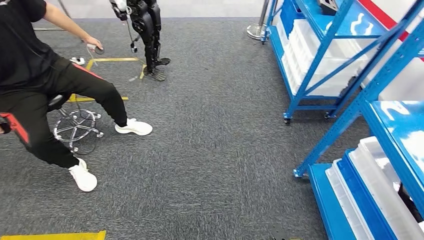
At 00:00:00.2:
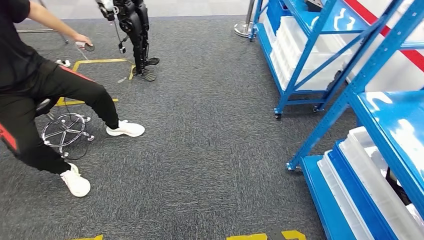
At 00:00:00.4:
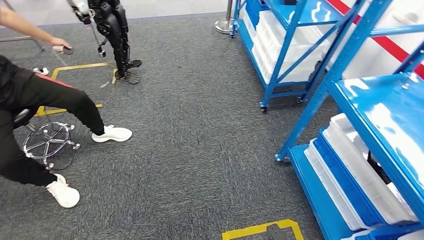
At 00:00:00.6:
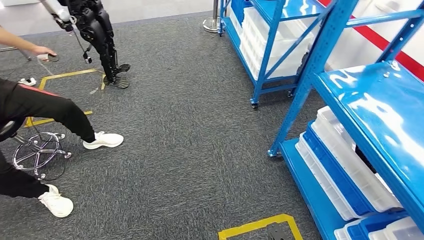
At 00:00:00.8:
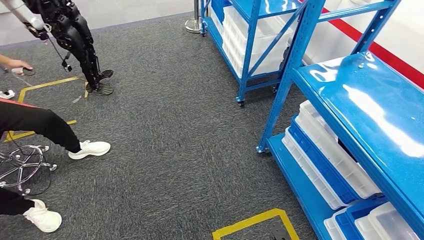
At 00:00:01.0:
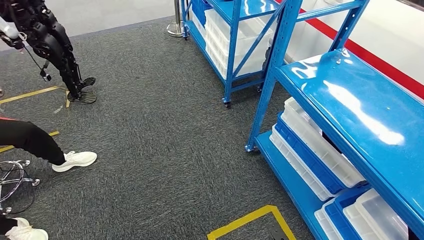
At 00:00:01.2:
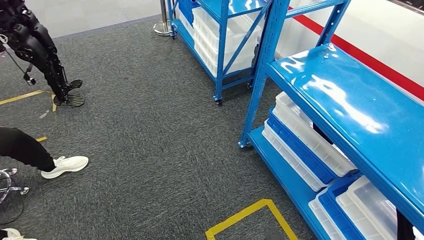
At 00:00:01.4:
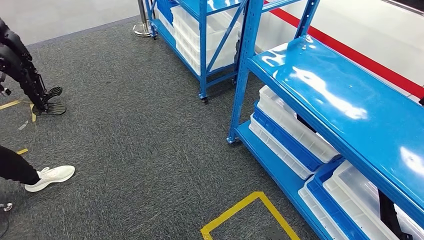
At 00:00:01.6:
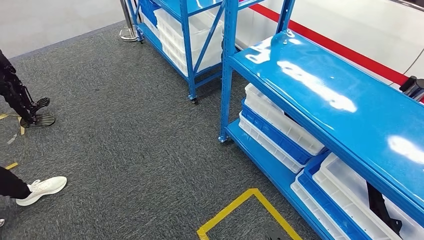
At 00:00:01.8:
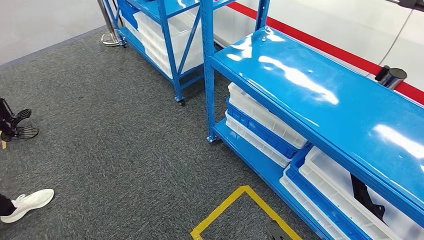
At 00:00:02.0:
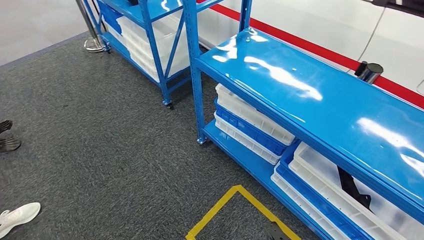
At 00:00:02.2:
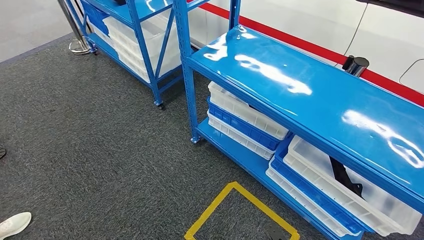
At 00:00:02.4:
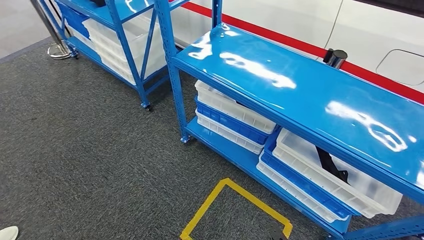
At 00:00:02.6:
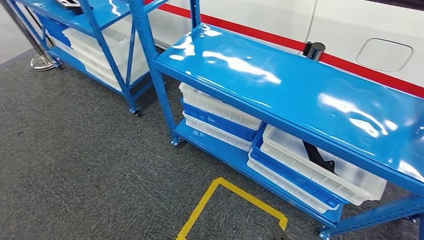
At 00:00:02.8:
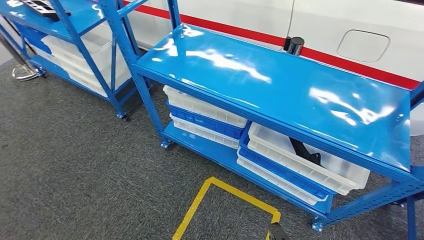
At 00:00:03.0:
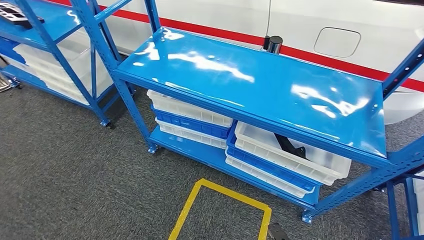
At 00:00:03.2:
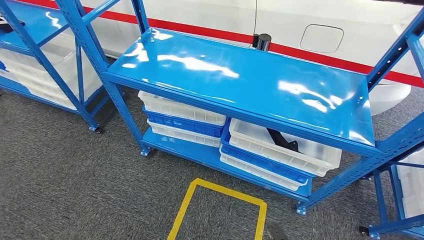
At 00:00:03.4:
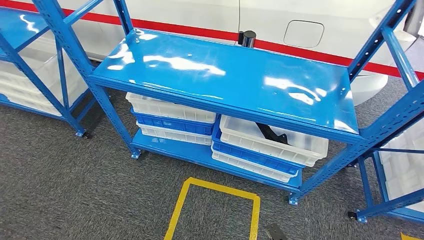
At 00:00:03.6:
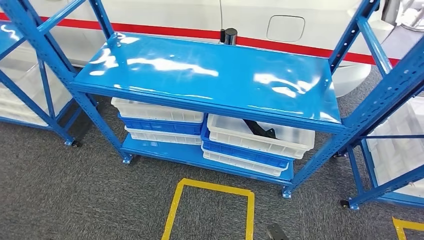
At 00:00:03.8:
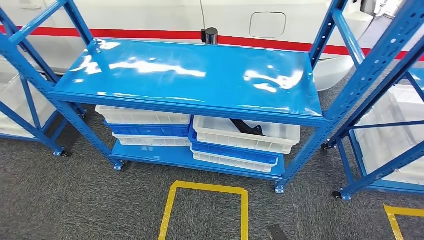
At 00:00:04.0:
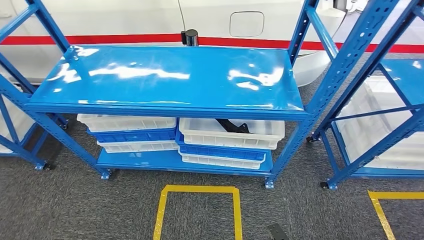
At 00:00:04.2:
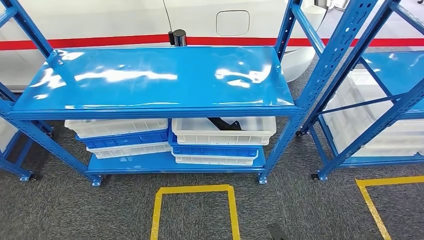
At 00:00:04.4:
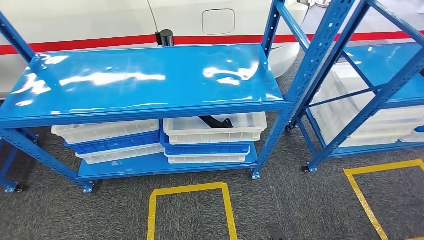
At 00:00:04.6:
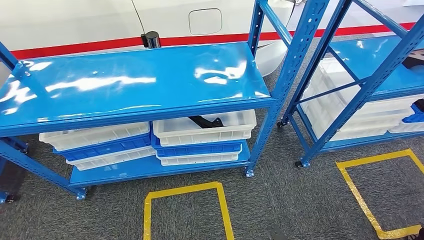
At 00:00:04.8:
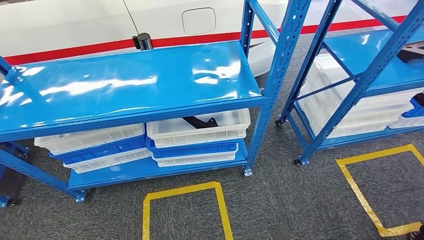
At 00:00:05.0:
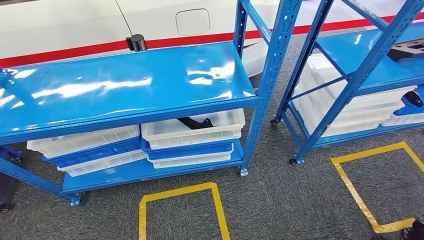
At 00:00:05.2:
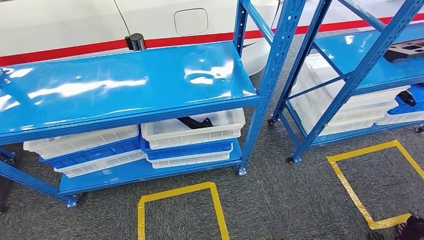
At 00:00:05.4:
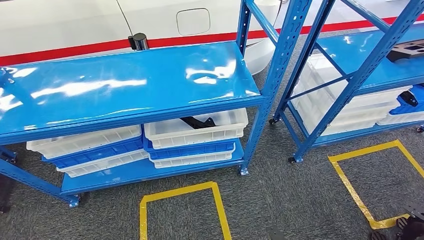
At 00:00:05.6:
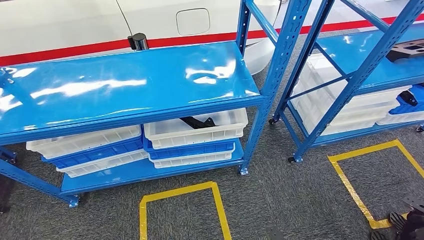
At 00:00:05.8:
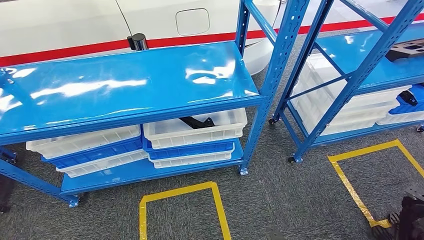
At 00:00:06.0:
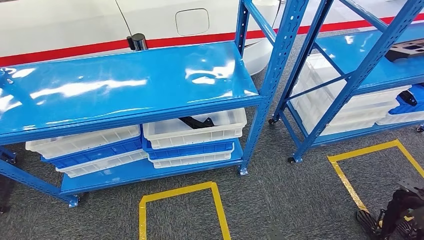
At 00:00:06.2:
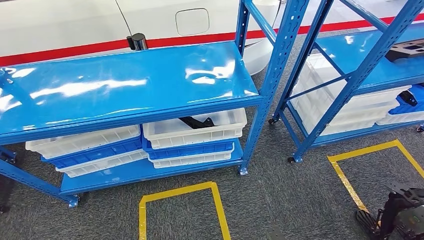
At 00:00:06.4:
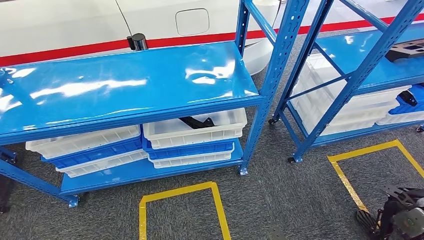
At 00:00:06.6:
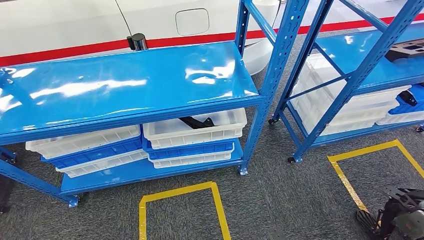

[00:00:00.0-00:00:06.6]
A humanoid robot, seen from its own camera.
Step, 00:00:00.0 to 00:00:06.6: Move to the initial position of the shelf.
00:00:05.0 to 00:00:06.6: The left hand heads to the right, covering roughly 10 cm.

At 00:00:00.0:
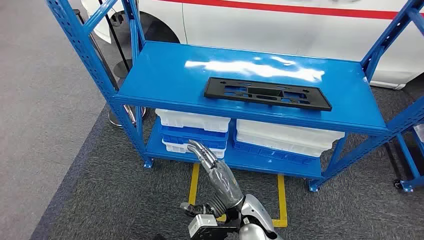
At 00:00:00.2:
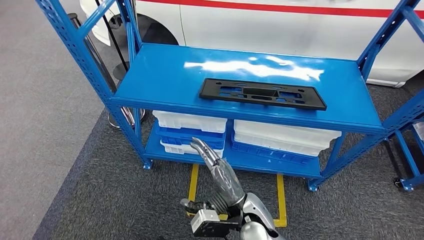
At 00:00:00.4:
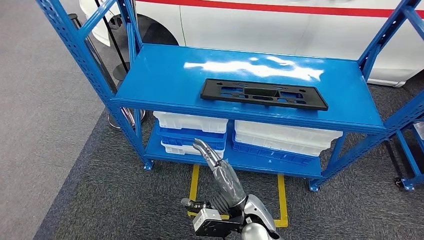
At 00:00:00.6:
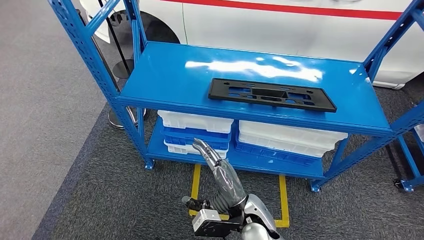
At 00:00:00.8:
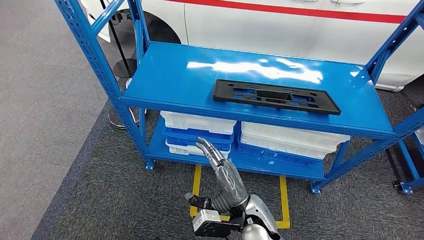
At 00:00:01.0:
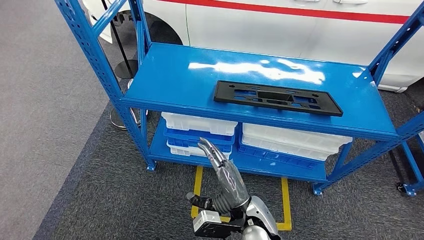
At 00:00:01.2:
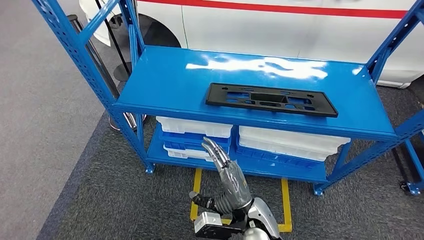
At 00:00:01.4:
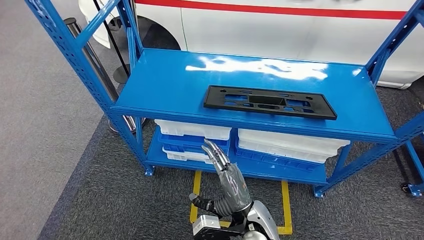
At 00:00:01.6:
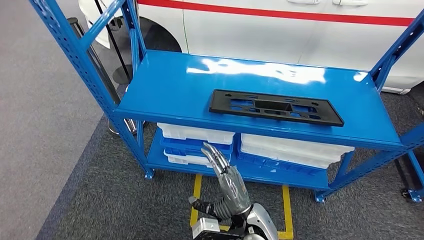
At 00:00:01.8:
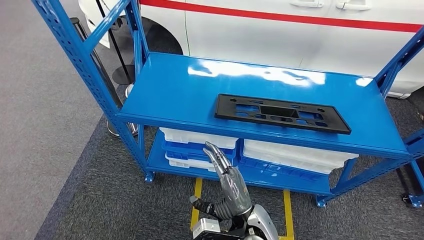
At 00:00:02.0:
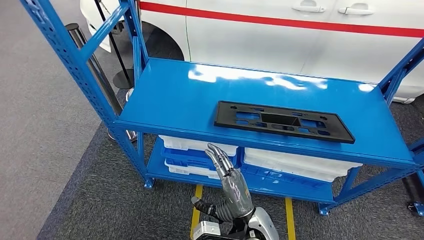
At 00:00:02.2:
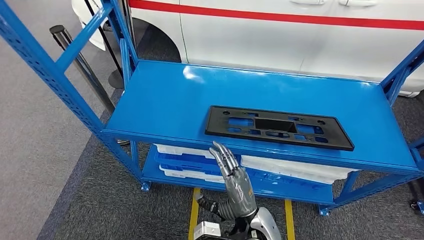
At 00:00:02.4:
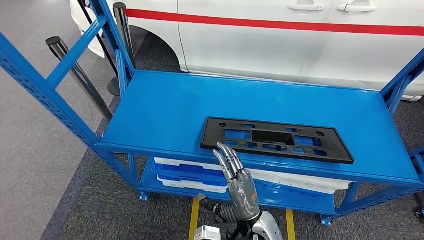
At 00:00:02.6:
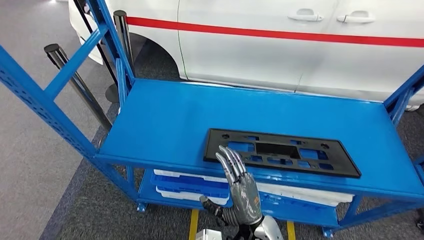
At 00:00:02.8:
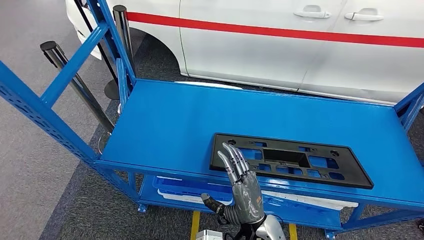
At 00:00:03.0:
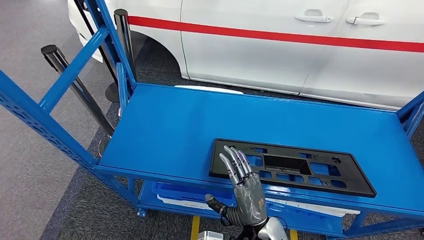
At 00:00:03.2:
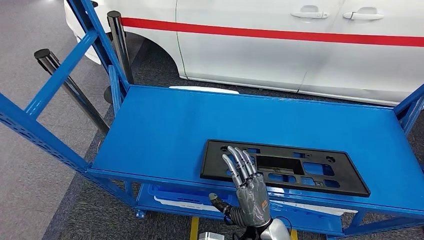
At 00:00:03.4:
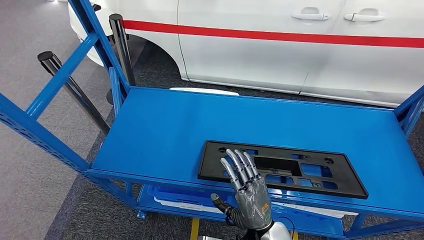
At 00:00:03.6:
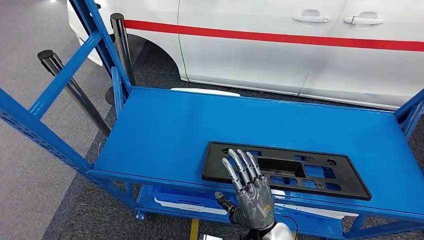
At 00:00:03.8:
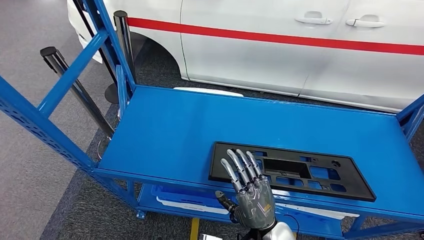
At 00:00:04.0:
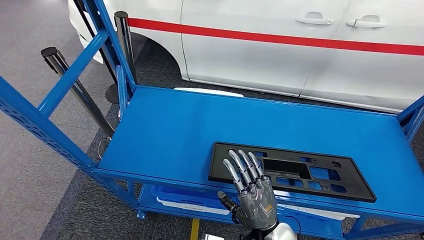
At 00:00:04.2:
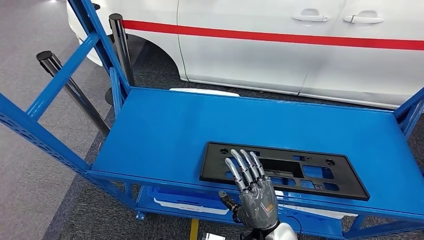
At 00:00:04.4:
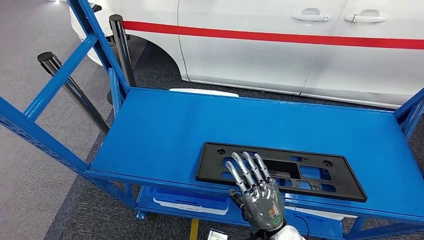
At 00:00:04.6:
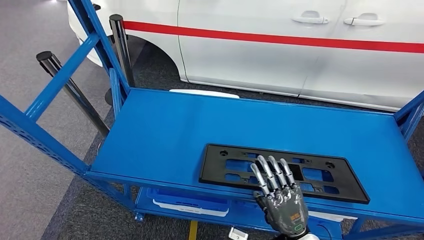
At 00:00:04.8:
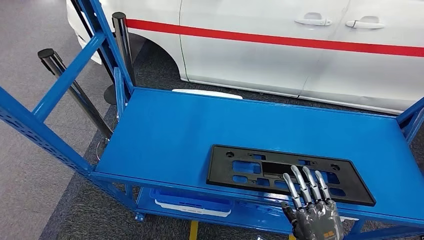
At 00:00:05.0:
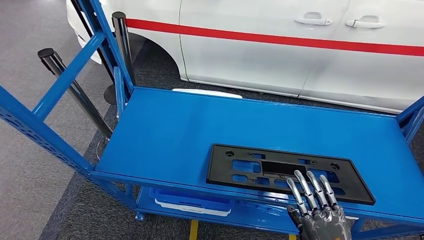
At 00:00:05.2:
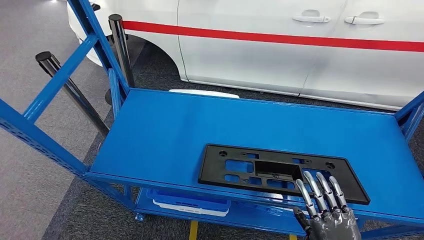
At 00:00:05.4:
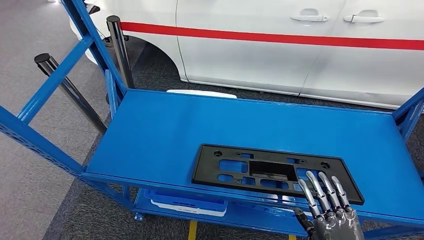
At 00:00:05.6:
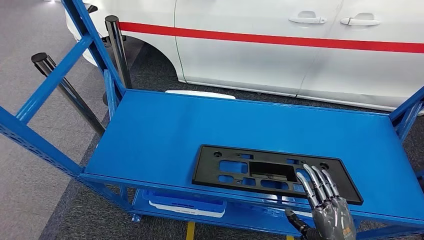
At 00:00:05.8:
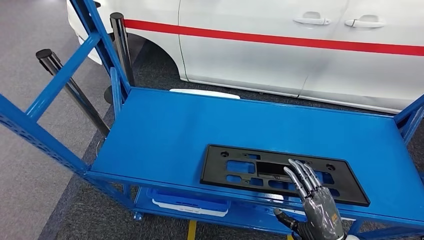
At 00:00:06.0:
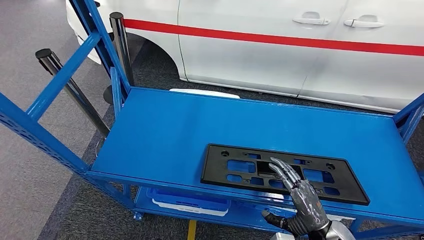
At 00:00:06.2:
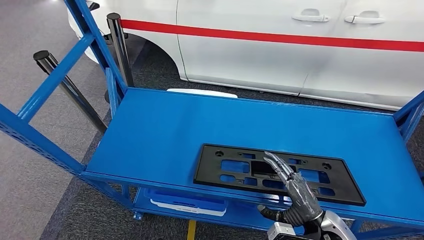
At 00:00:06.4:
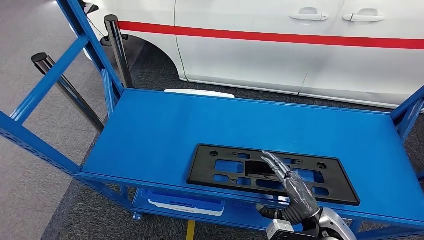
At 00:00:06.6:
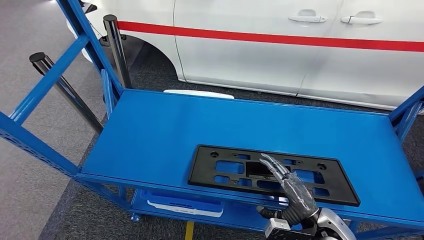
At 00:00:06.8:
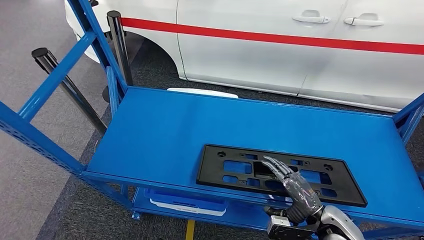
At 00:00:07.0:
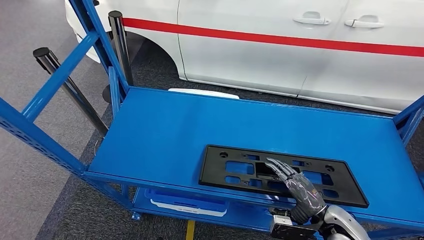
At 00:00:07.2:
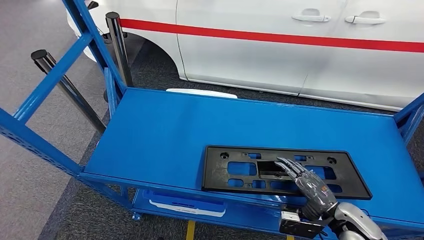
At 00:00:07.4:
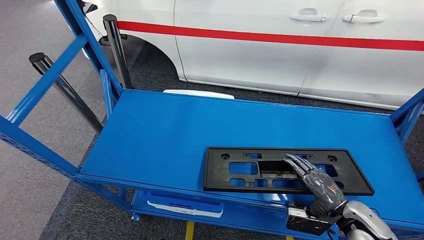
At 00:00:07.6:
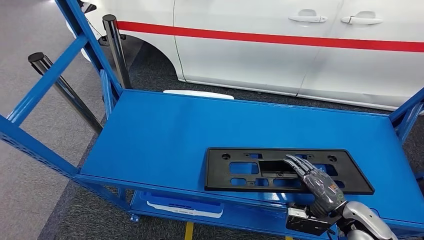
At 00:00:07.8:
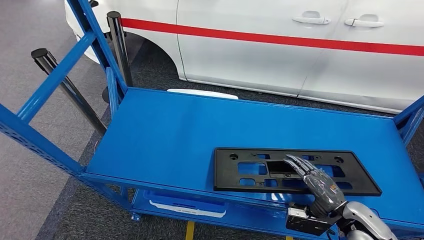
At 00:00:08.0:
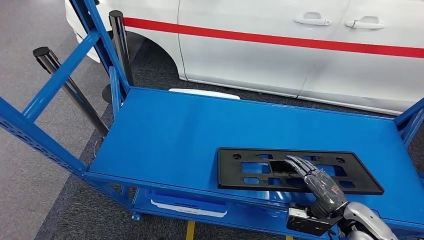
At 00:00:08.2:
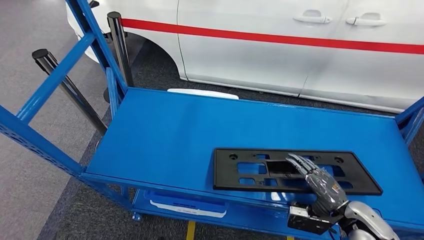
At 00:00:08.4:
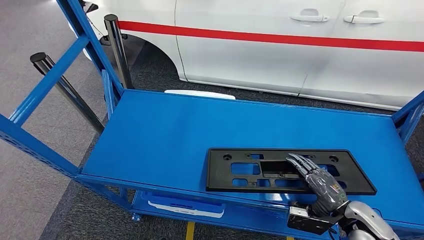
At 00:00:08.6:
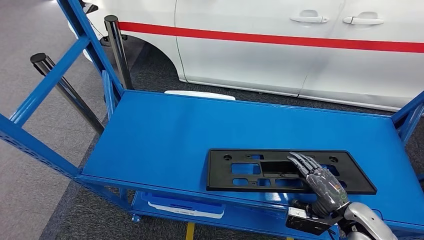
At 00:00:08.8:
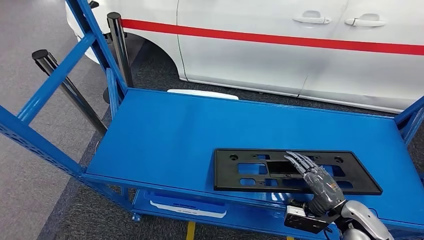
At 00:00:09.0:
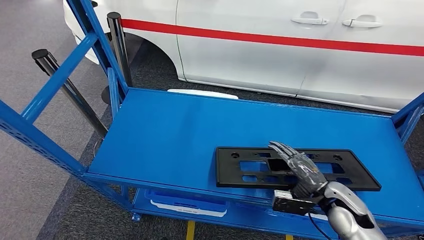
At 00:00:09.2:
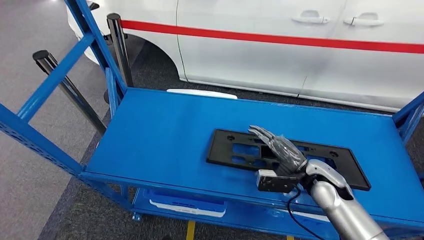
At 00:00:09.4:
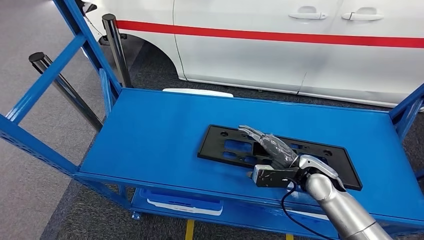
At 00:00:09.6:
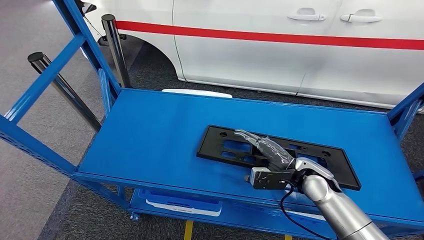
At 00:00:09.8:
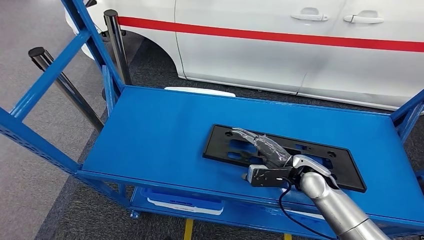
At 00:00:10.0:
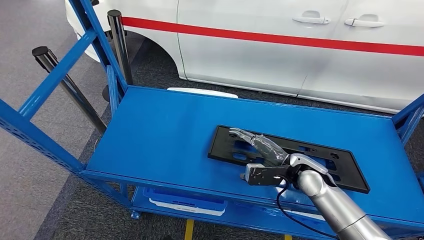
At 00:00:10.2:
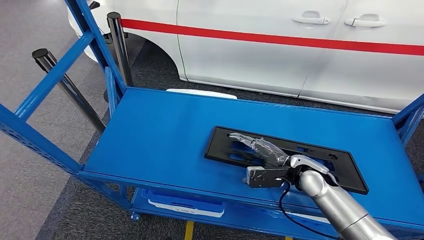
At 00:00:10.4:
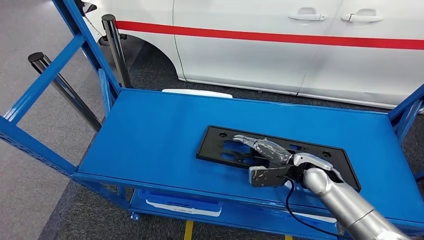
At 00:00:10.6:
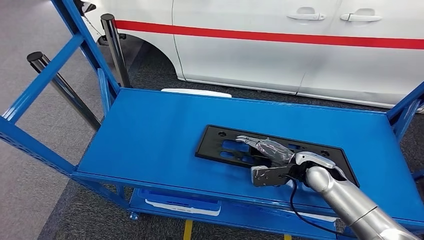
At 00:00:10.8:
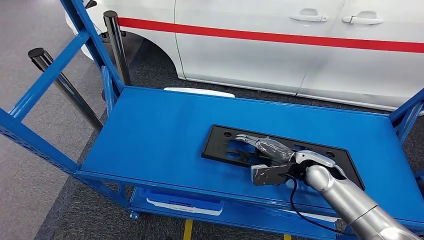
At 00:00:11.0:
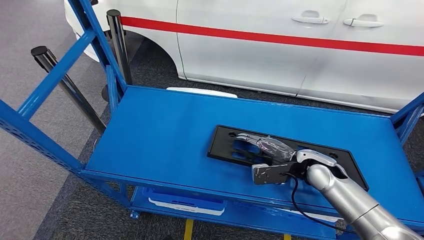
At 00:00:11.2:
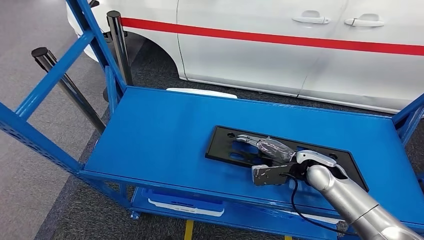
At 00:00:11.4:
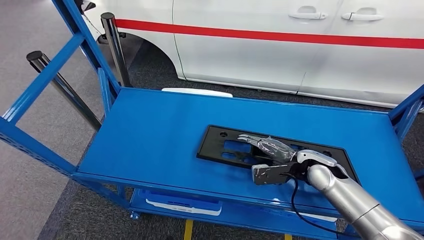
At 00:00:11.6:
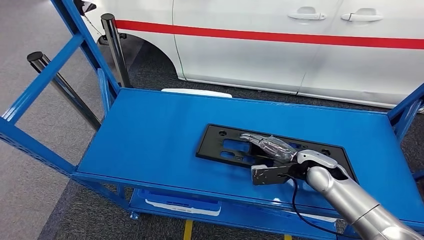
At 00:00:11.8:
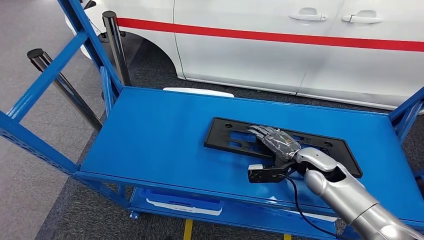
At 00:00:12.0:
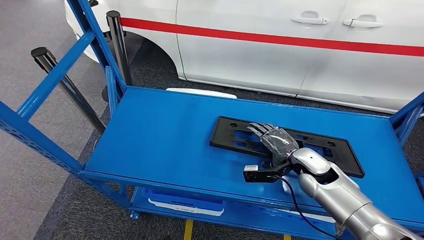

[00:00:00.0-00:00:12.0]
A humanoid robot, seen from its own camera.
00:00:04.4 to 00:00:06.0: The right hand travels to the right by some 10 cm.
00:00:07.6 to 00:00:09.0: The right hand shifts by approximately 5 cm.
